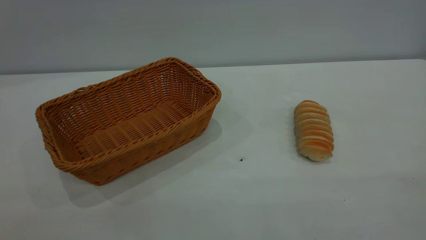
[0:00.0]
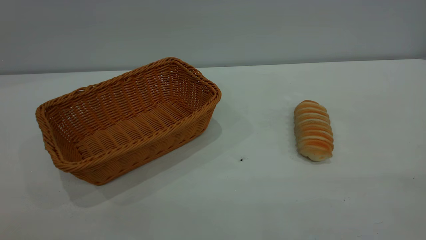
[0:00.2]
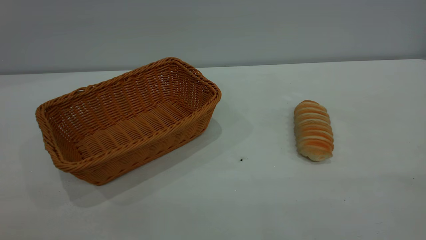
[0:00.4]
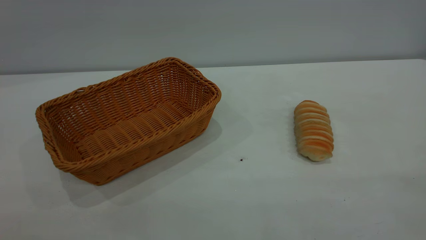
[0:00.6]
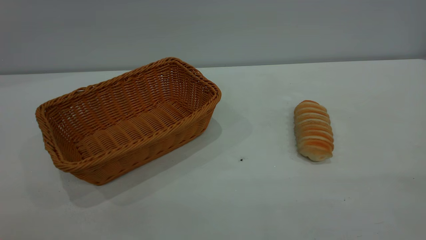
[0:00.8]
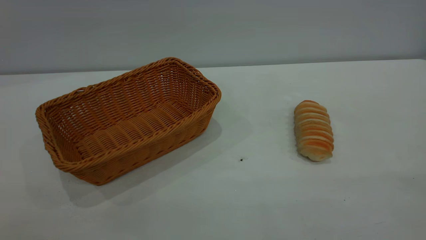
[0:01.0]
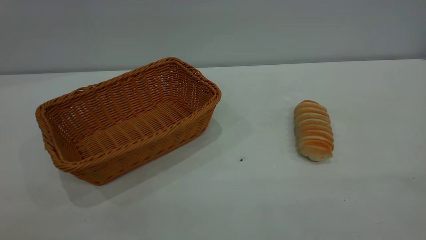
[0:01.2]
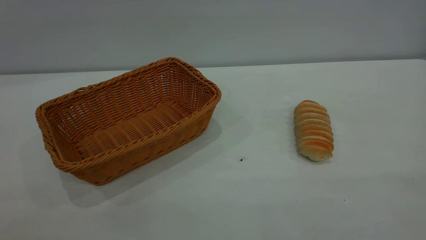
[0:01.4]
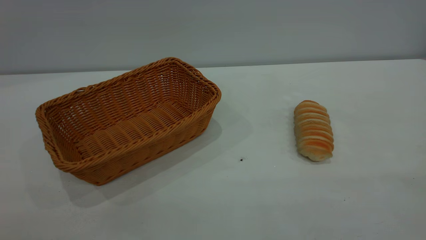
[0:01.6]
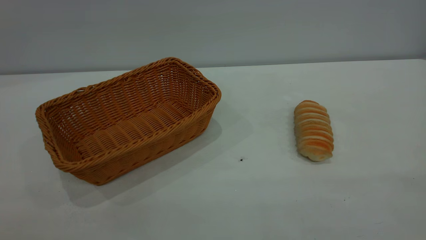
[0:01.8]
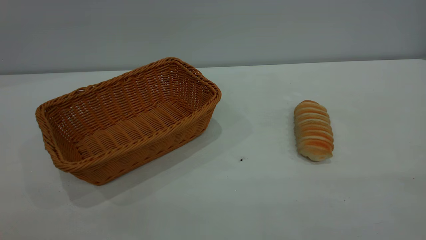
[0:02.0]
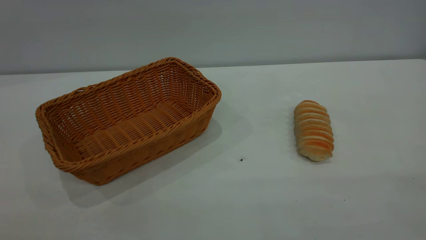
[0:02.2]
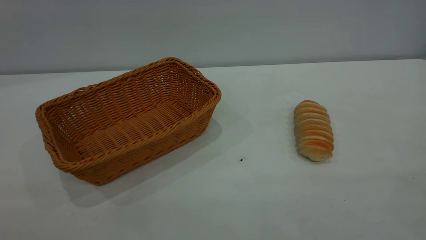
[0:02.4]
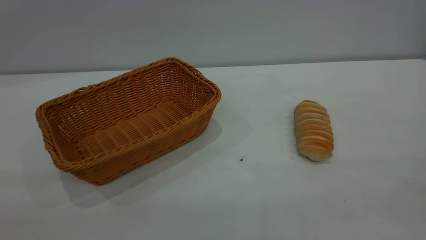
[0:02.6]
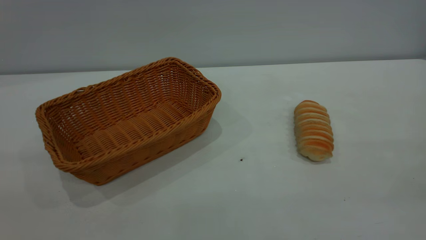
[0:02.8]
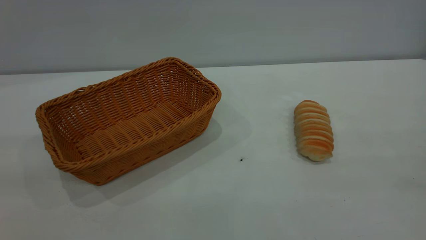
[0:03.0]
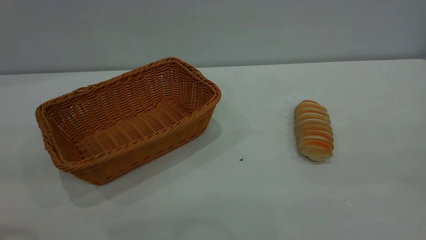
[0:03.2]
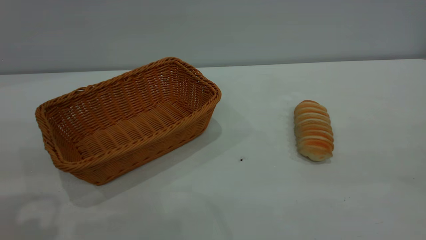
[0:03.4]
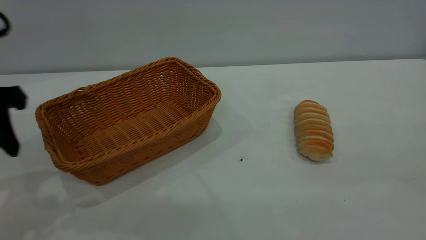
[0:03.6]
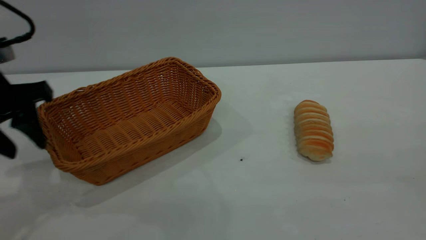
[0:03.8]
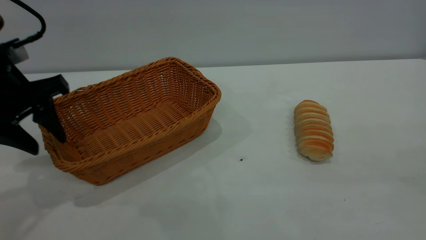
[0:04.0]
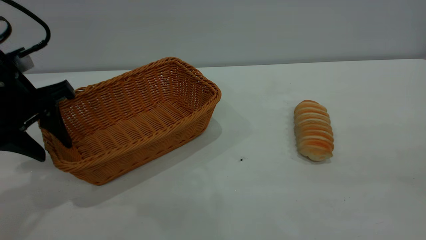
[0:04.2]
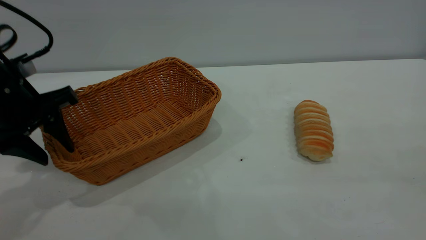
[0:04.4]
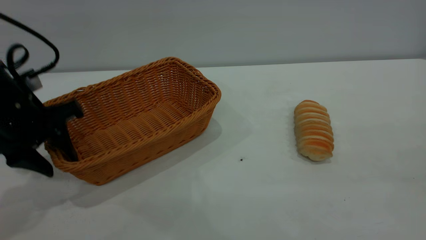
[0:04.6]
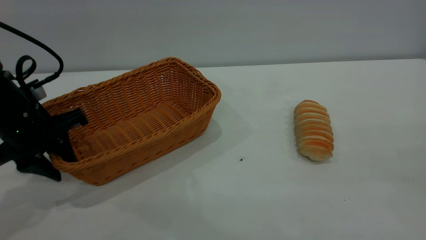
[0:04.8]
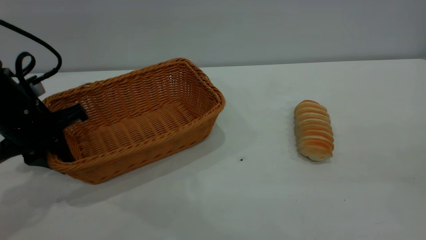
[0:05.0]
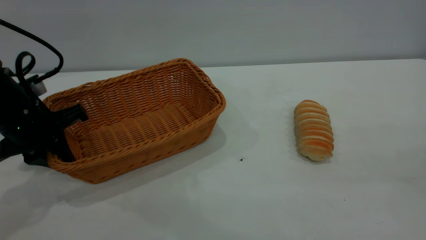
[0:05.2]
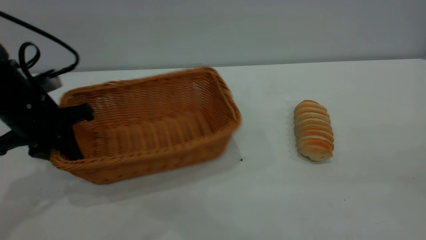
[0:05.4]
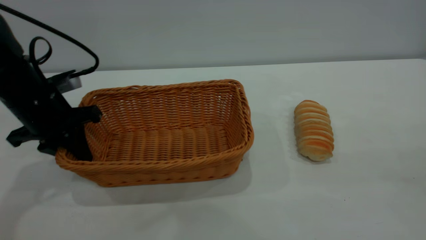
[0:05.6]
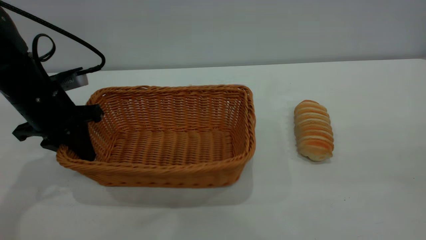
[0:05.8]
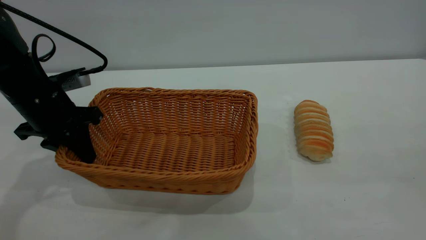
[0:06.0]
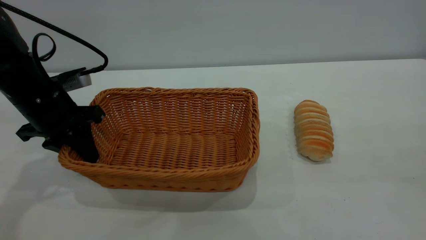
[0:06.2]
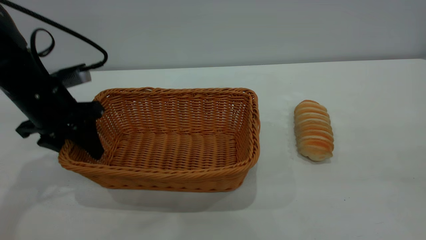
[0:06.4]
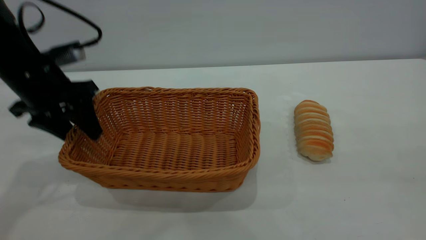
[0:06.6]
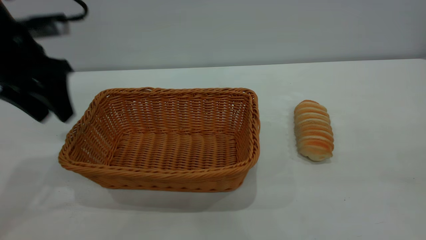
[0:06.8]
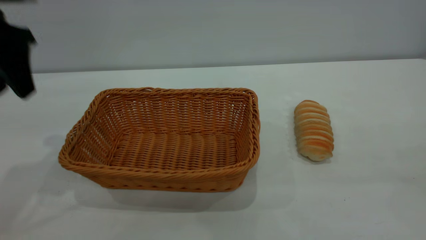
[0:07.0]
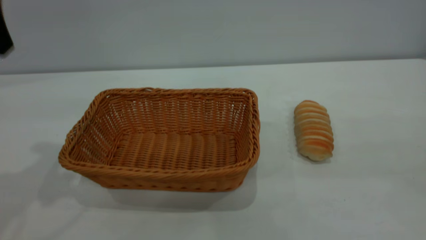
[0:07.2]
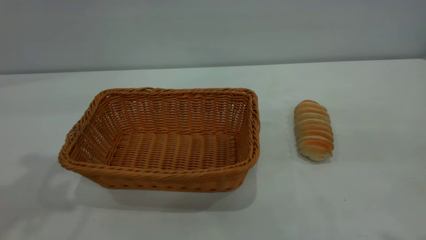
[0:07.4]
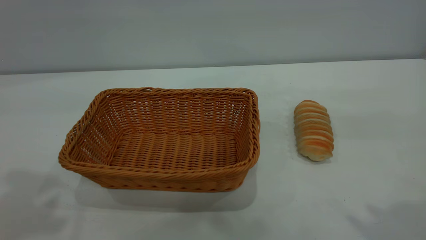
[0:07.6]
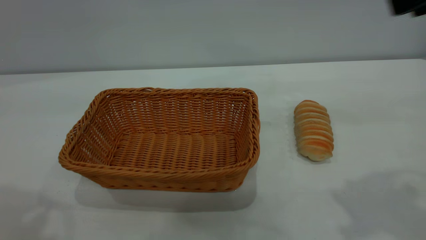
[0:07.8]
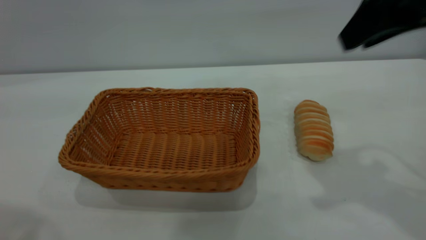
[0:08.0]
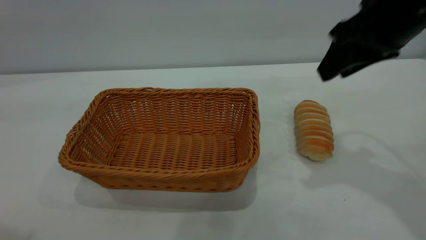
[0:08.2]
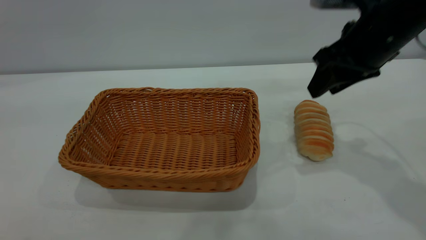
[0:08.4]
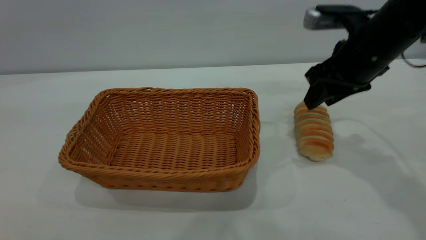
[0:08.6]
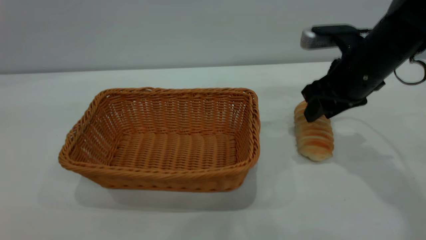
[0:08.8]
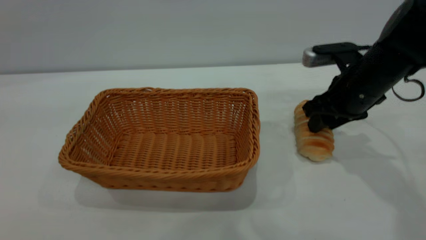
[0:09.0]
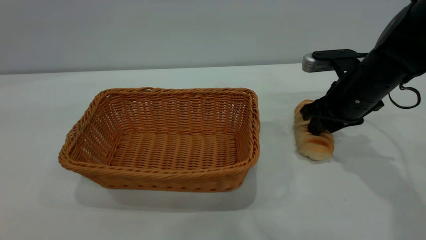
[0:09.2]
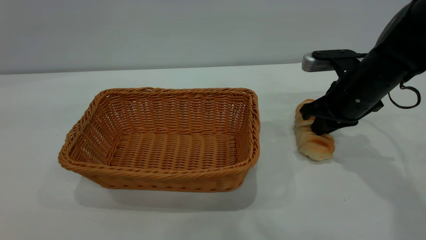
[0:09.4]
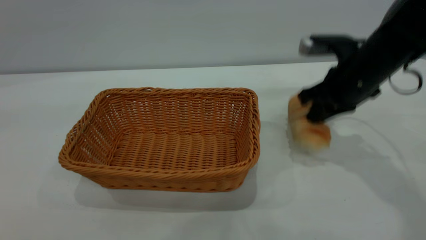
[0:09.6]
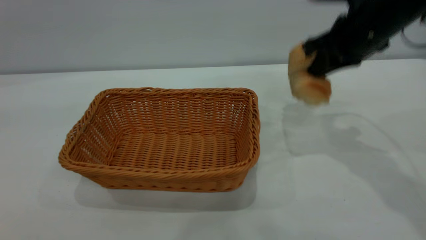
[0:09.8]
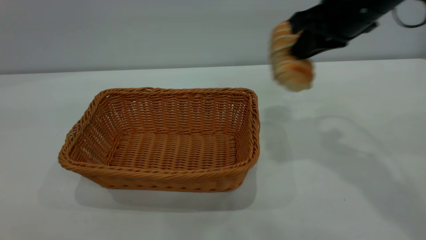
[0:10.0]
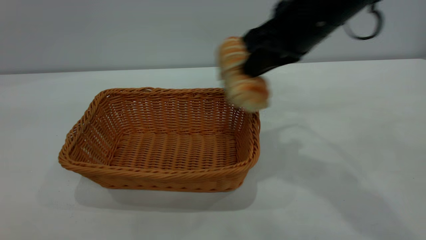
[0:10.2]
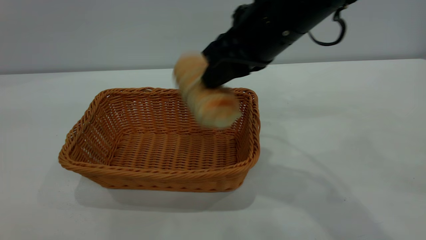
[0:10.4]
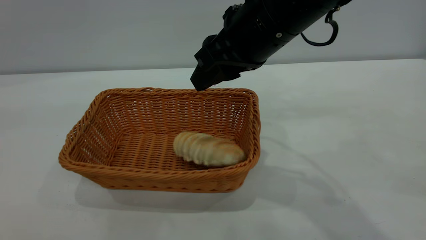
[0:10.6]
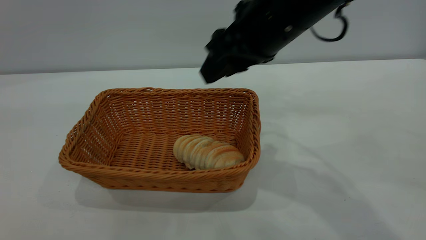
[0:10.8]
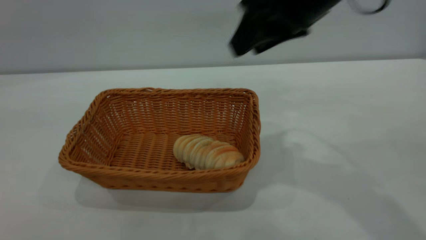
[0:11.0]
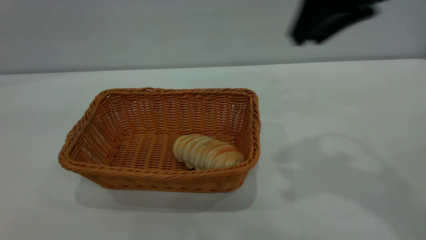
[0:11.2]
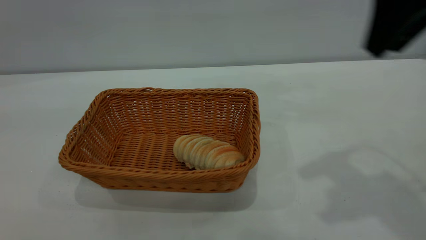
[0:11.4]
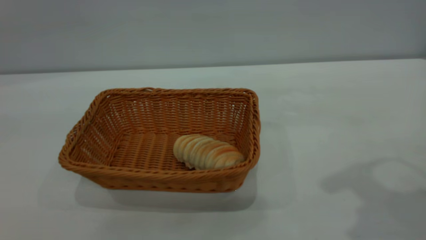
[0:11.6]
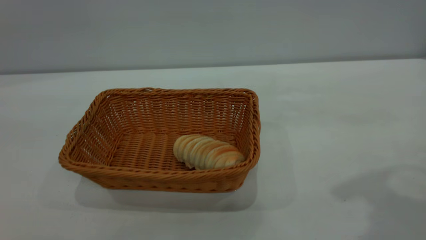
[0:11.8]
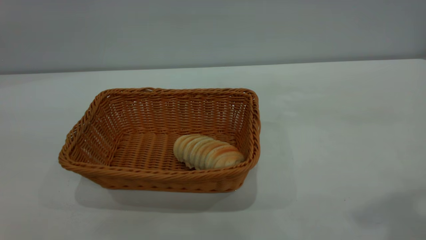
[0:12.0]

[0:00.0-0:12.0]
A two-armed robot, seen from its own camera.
Task of the whole recording: One hand grasps the yellow basket and places it in the middle of the table, while the other hand picks up the long bread and puts it into the yellow basket.
Step, 0:00.0 to 0:06.6: Move the basket to the center of view.
Step, 0:09.8 to 0:10.8: place the bread into the basket.
0:00.0 to 0:01.6: The two grippers keep their place.
0:03.0 to 0:04.4: The left gripper goes roughly 25 cm forward and downward.
0:04.4 to 0:06.0: The left gripper shifts by approximately 5 cm, and closes up.
0:06.0 to 0:07.6: The right gripper is displaced forward by approximately 10 cm. Meanwhile the left gripper goes roughly 35 cm upward and backward, and opens up.
0:07.6 to 0:09.0: The right gripper heads downward and forward, covering some 30 cm. Meanwhile the left gripper travels backward and upward by about 10 cm.
0:09.0 to 0:10.4: The right gripper goes approximately 20 cm to the left, upward and backward, and closes its fingers.
0:10.4 to 0:12.0: The left gripper travels backward by approximately 10 cm. The right gripper goes about 30 cm upward, to the right and backward, and opens its fingers.

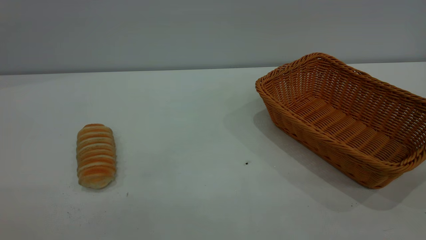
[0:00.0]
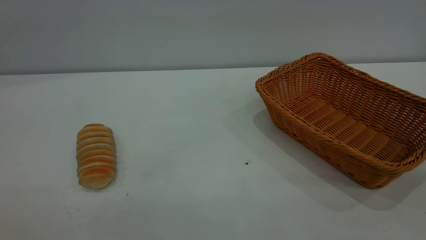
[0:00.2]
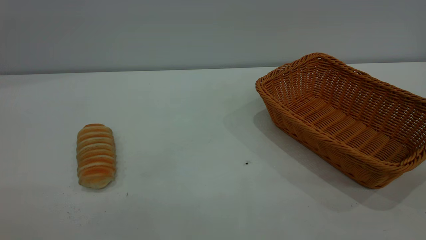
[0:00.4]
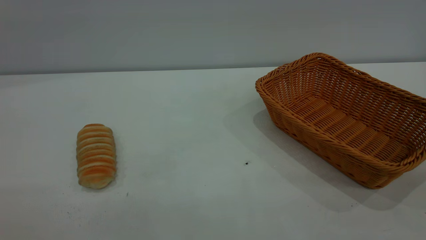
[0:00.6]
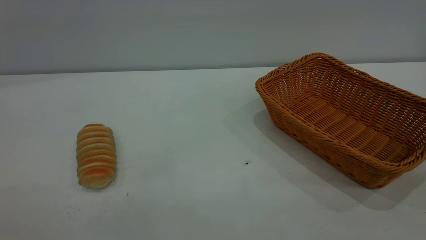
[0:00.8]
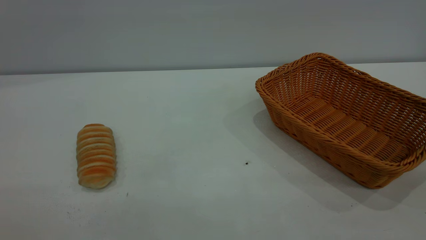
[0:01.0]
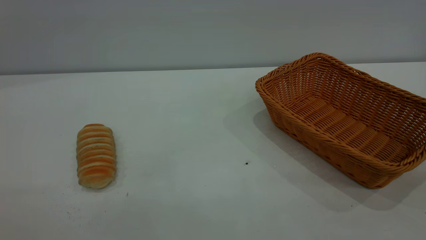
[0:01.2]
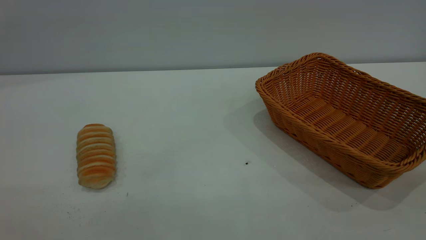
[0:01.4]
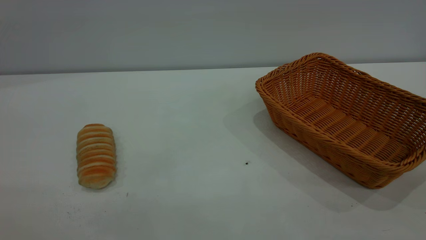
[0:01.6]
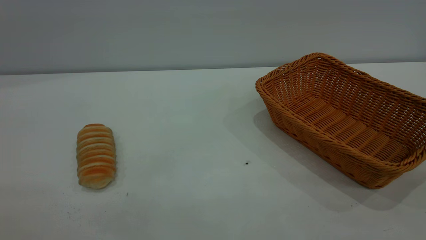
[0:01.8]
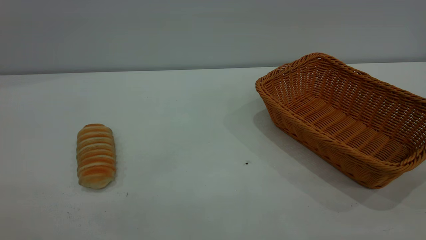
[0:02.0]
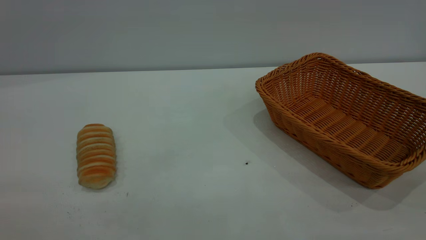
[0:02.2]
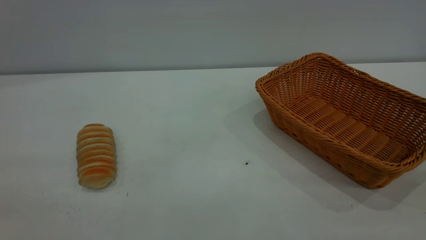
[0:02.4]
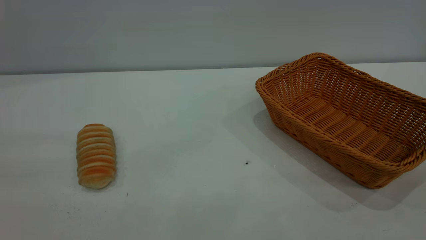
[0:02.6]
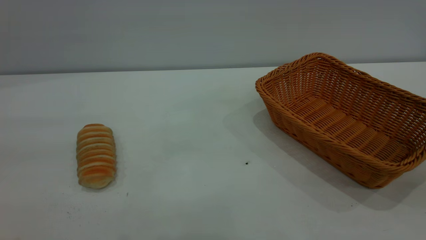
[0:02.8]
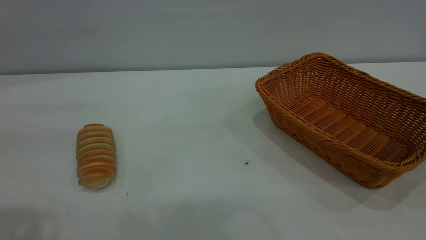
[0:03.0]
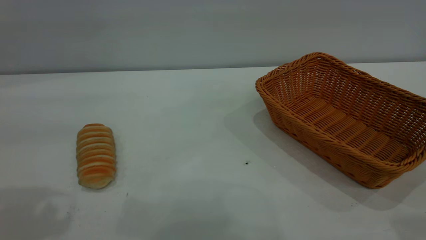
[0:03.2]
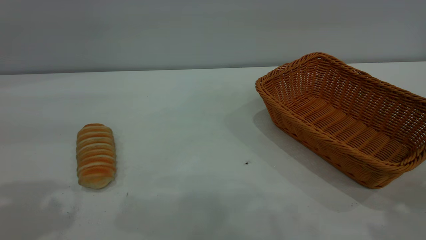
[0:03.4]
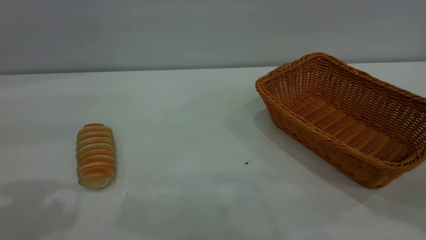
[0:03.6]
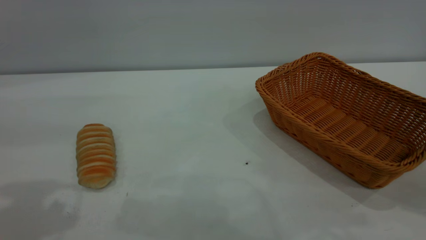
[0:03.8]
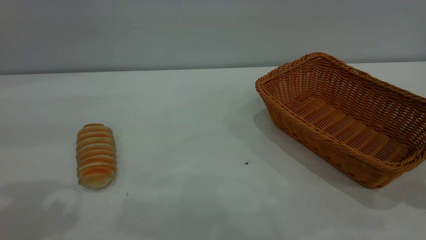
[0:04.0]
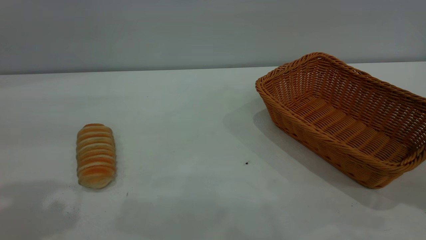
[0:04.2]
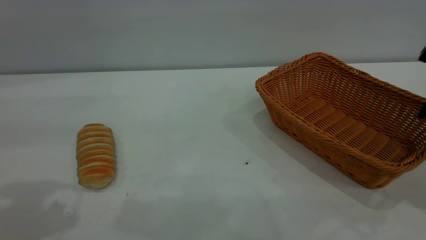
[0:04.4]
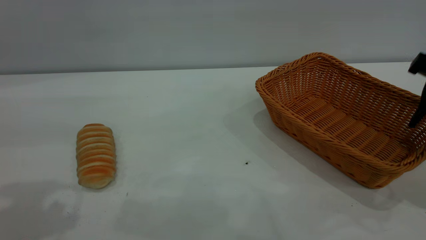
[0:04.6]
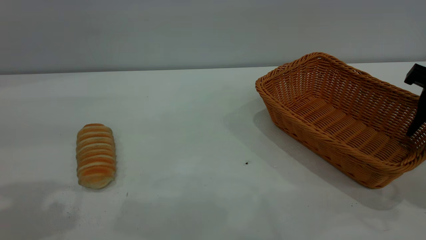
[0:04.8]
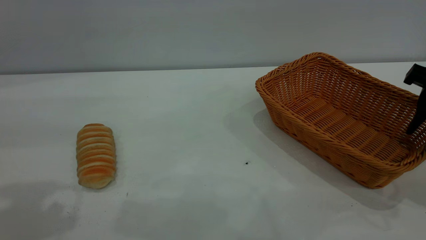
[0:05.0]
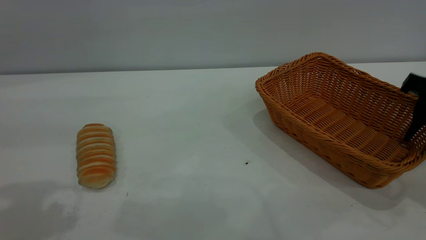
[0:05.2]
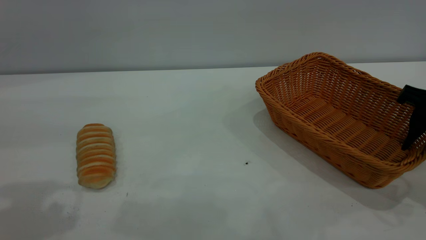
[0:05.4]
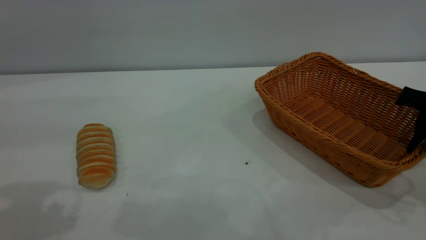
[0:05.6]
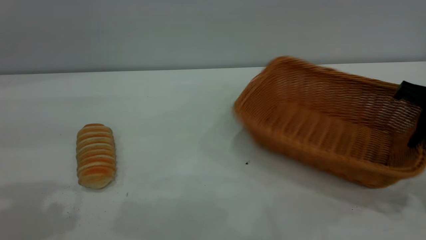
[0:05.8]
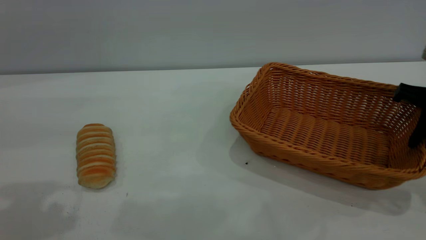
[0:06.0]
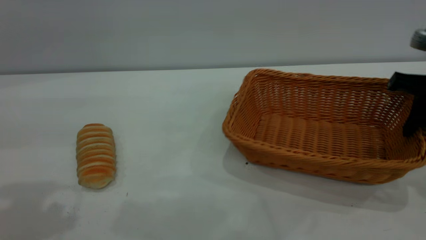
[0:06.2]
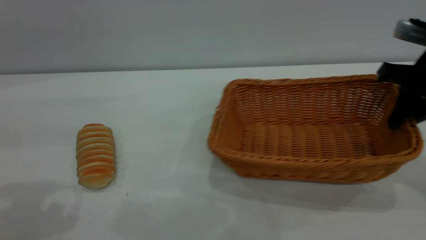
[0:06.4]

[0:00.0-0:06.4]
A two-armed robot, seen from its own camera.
Task of the whole recording: One hand grasps the yellow basket and places it in the middle of the table, while the other hand picks up the long bread and puts it into the yellow basket.
0:03.2 to 0:04.8: The right gripper travels downward and forward by some 20 cm.
0:04.8 to 0:06.4: The right gripper shifts by approximately 5 cm, and closes its fingers.
